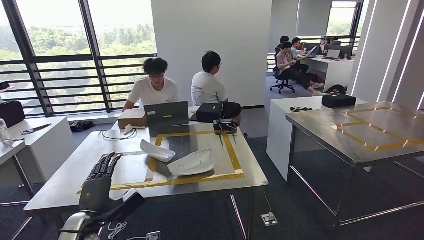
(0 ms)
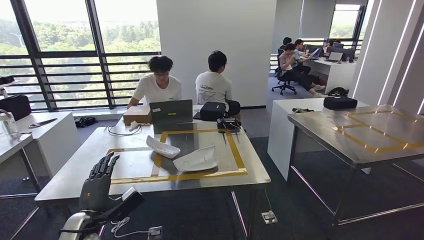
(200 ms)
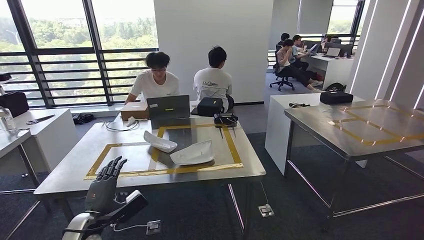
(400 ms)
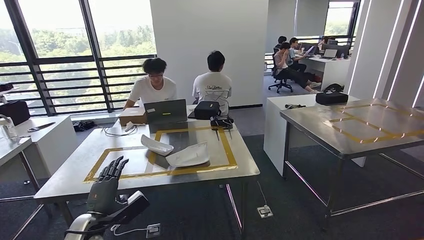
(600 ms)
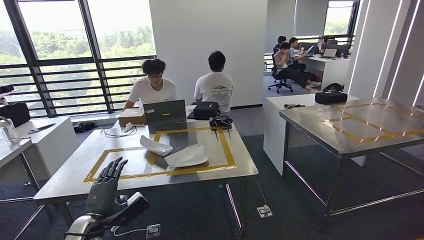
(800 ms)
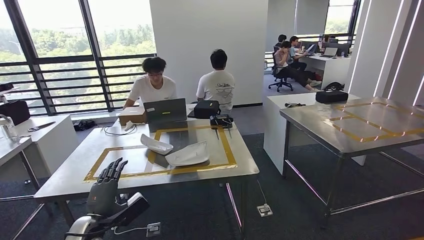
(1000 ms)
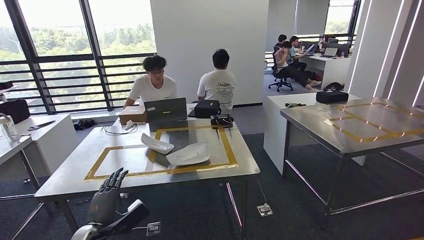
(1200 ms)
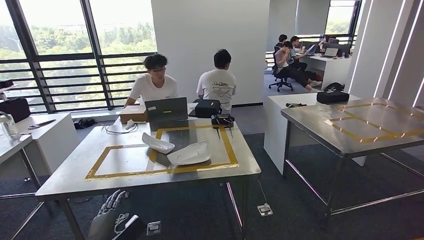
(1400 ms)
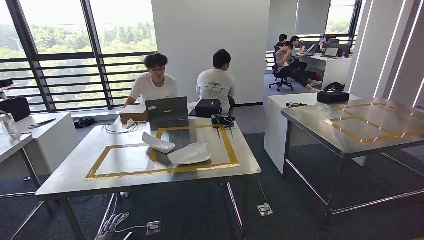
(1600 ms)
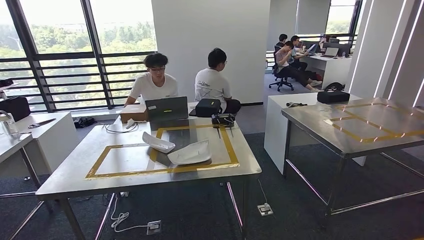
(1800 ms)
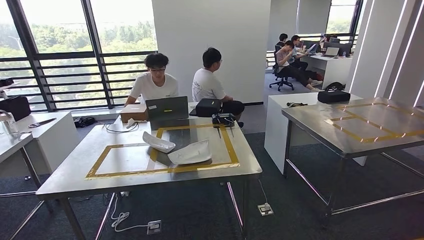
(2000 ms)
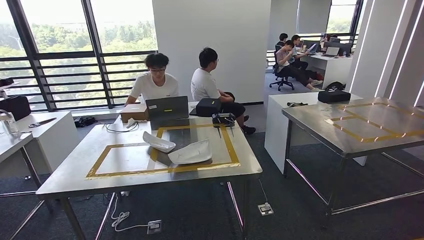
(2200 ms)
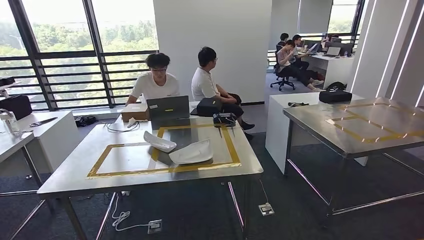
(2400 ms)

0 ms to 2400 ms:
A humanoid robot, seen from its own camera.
Step, 0 ms to 2200 ms: Move to the initial position of the workbench.
